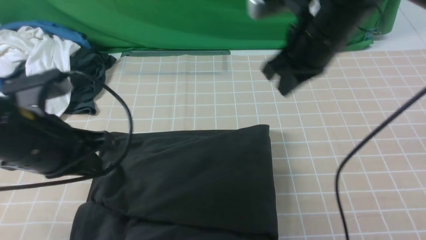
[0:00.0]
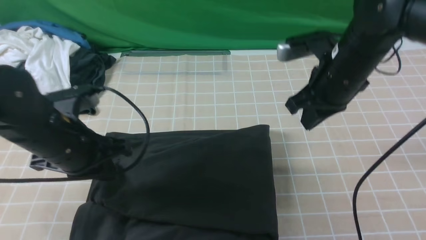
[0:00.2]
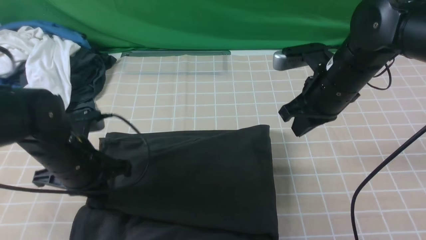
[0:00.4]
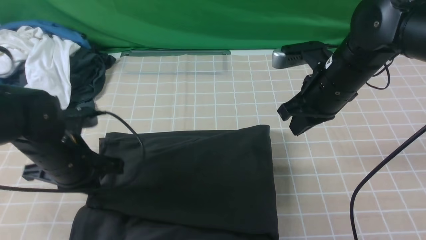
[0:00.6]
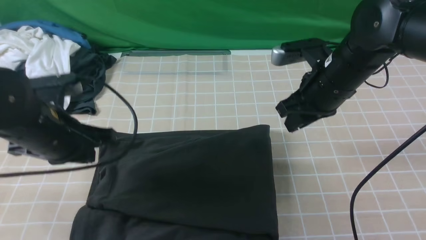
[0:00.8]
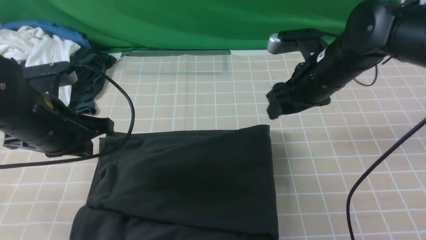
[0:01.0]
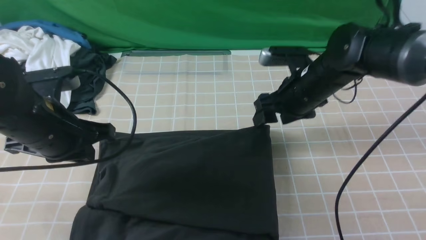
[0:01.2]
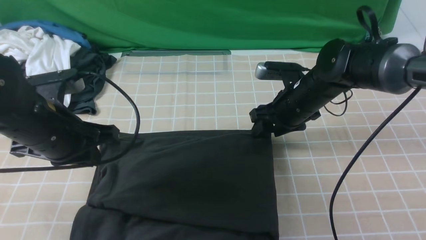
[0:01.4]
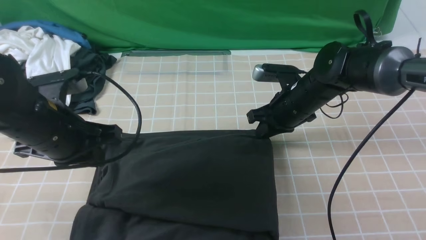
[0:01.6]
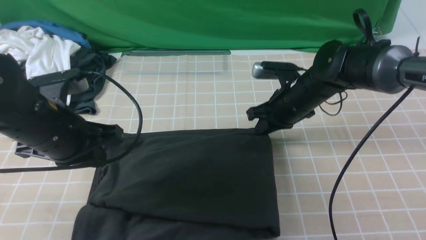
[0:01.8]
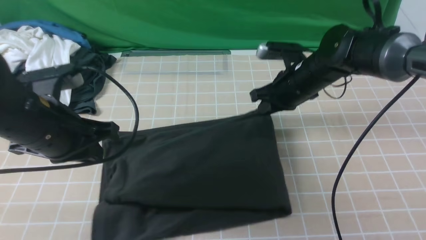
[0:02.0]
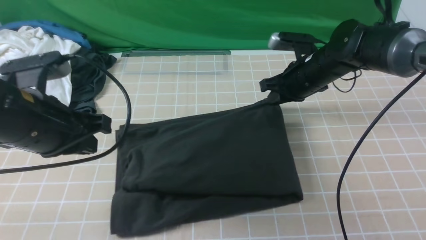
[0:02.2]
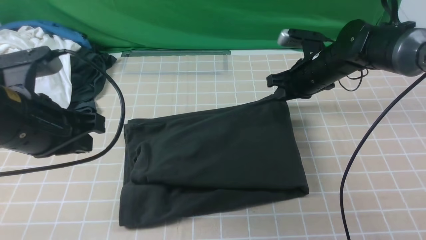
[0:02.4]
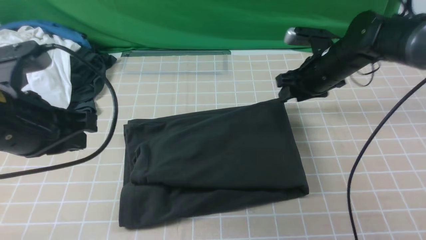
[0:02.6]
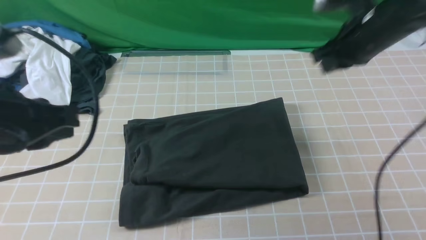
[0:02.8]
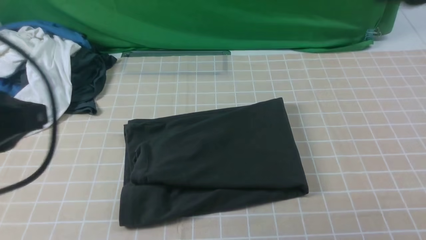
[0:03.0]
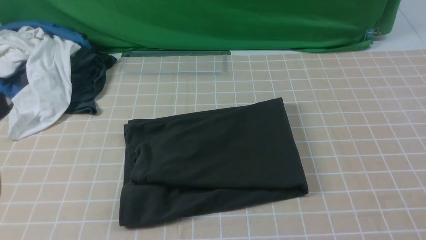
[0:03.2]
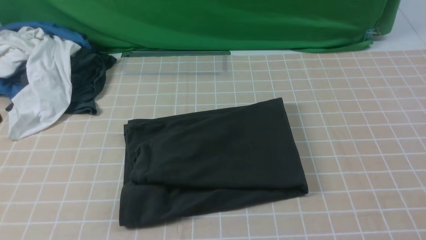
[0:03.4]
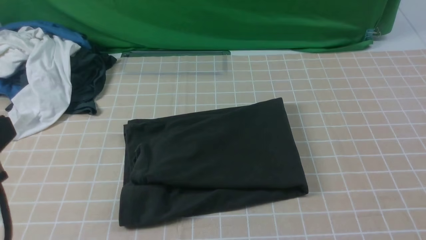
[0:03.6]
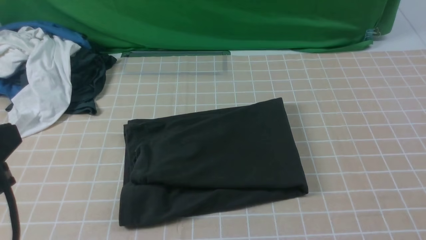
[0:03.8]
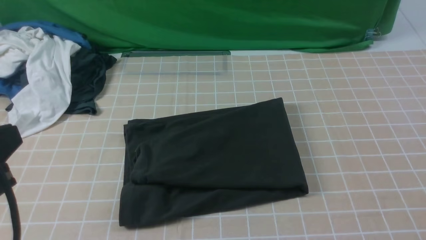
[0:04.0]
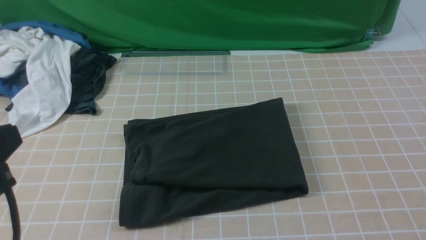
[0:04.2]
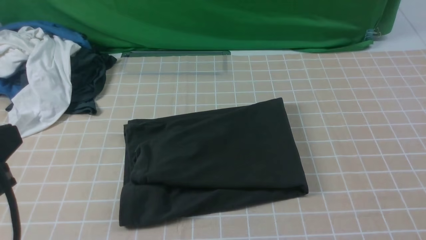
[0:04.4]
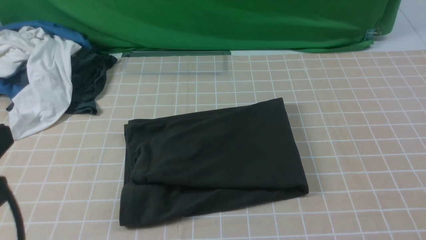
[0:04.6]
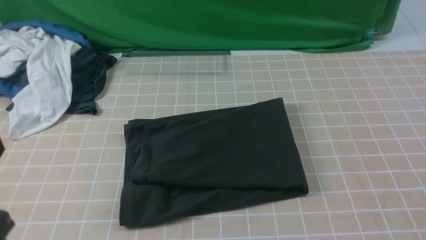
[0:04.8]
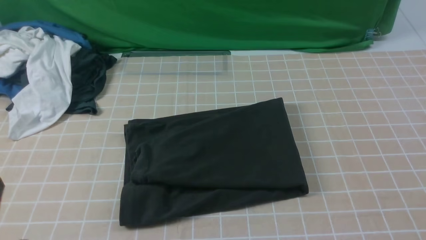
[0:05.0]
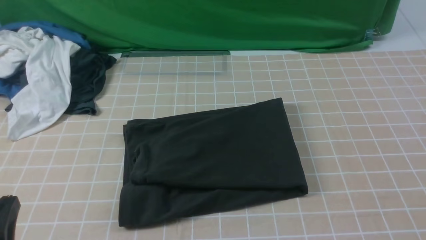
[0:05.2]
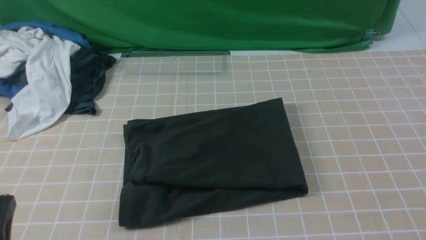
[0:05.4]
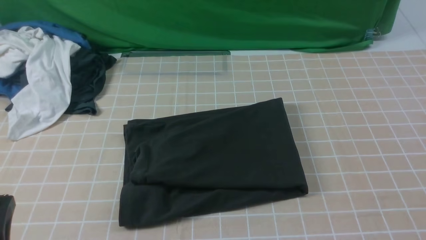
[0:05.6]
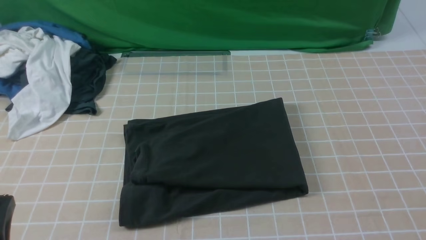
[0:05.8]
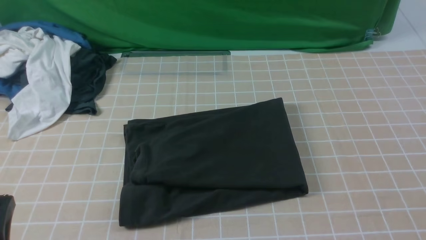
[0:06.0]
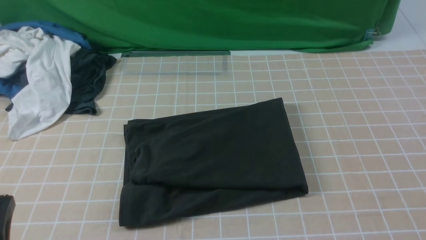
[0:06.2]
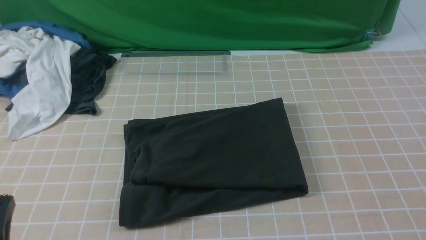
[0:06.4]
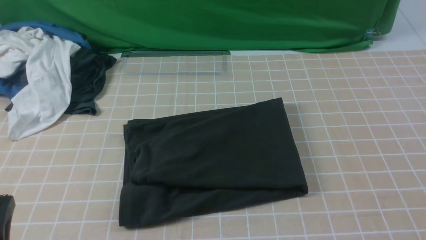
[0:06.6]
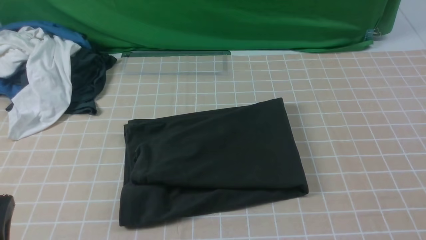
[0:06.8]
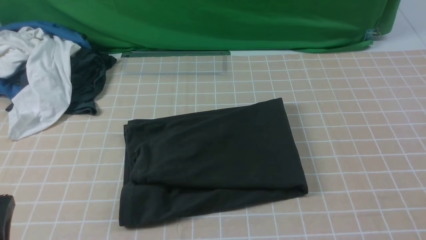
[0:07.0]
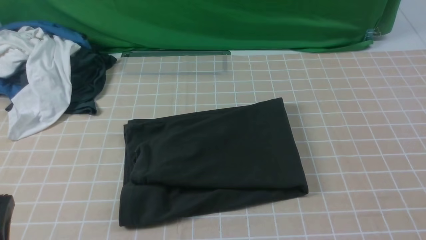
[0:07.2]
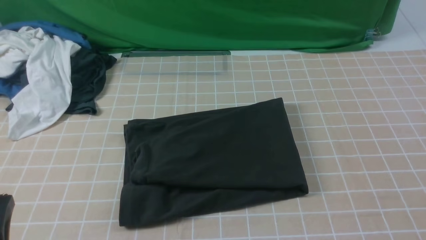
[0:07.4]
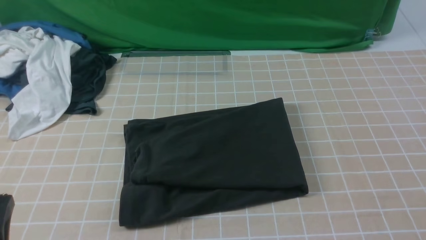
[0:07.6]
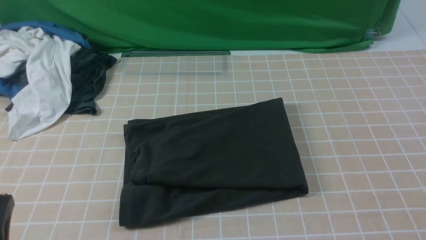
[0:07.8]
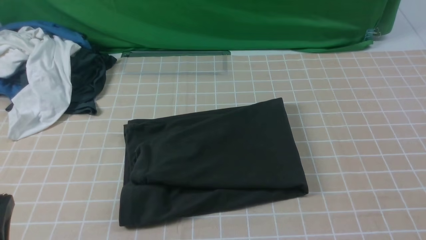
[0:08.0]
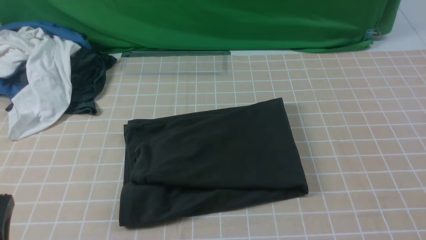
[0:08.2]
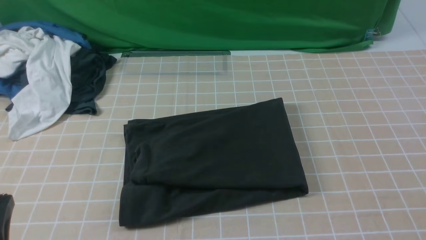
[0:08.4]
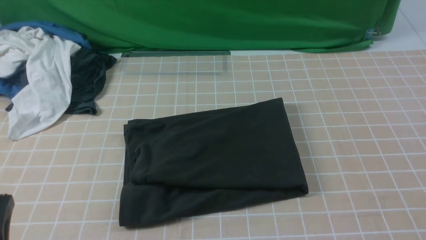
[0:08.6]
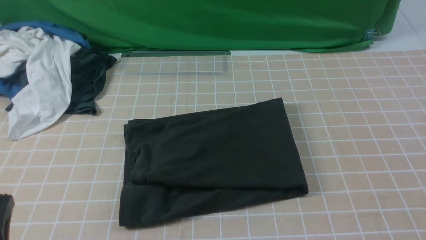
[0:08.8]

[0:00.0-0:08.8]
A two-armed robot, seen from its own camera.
0:00.0 to 0:01.4: The right gripper moves downward, approximately 15 cm, and opens up. The left gripper moves roughly 10 cm downward and comes back.
0:01.4 to 0:03.0: The right gripper heads upward, backward and to the right, covering roughly 30 cm, and closes its fingers. Meanwhile the left gripper is displaced backward and upward by about 15 cm.
0:03.0 to 0:04.4: The left gripper changes place by about 5 cm.
0:04.4 to 0:05.8: The left gripper moves downward, about 15 cm.
0:07.4 to 0:08.8: Both grippers stay about where they are.
